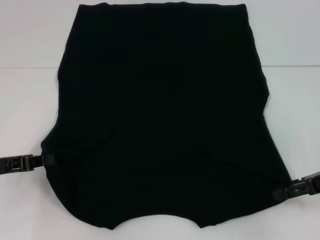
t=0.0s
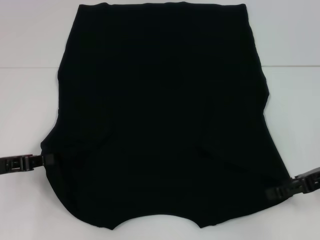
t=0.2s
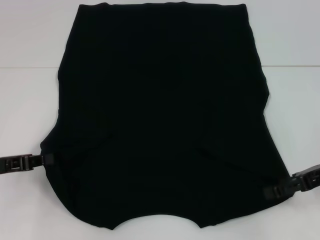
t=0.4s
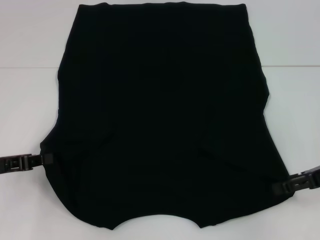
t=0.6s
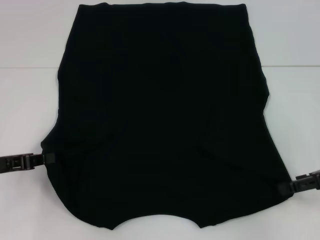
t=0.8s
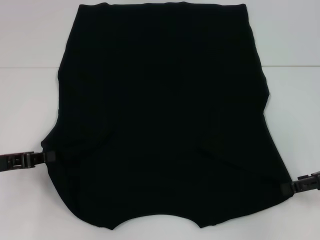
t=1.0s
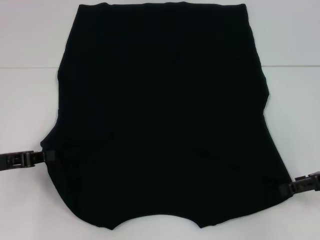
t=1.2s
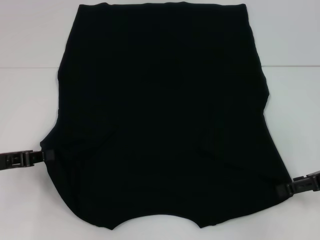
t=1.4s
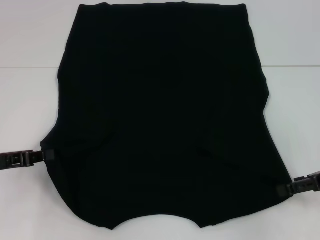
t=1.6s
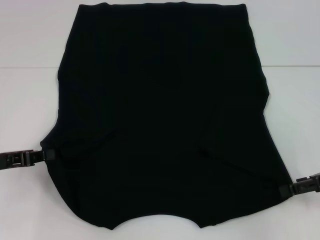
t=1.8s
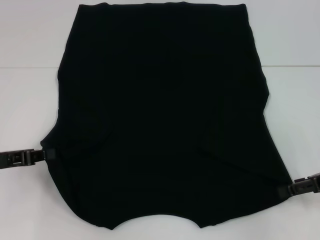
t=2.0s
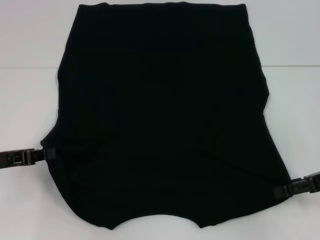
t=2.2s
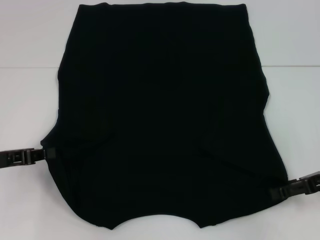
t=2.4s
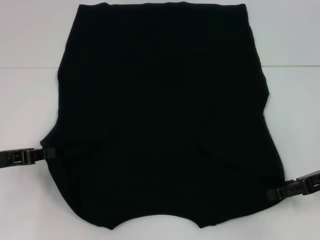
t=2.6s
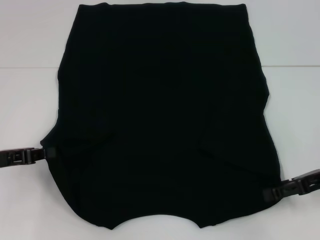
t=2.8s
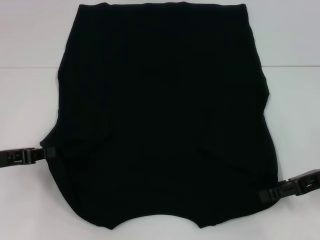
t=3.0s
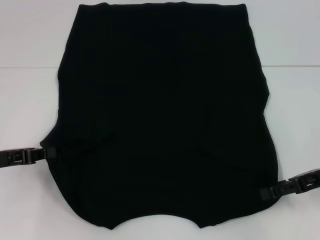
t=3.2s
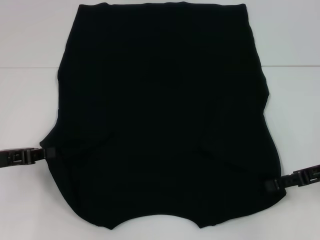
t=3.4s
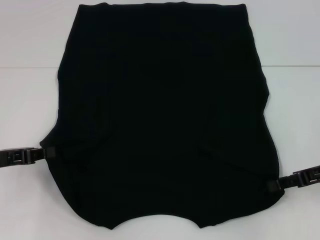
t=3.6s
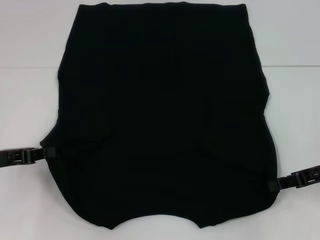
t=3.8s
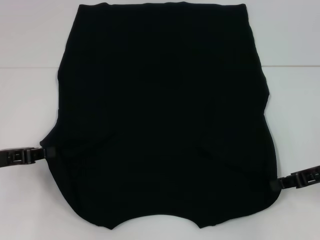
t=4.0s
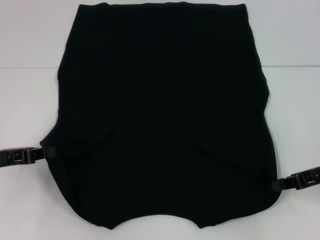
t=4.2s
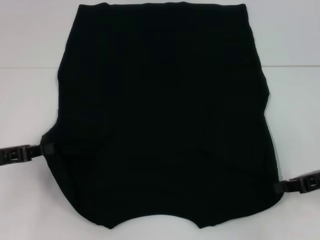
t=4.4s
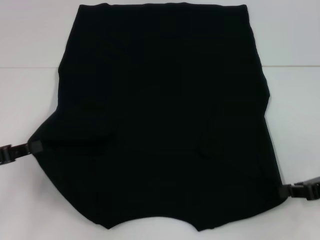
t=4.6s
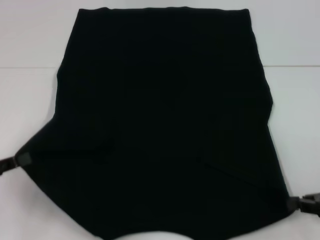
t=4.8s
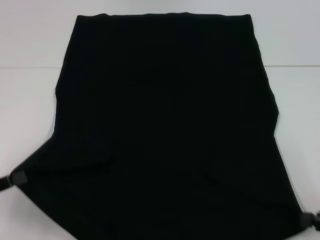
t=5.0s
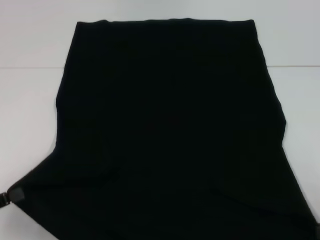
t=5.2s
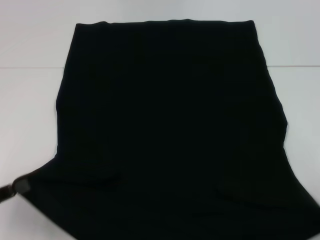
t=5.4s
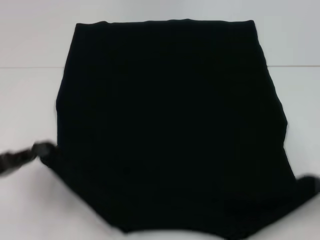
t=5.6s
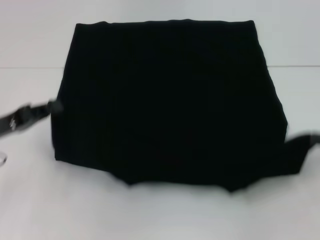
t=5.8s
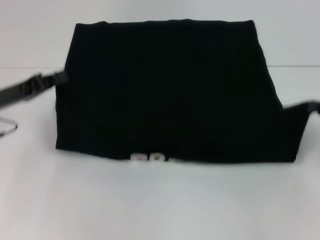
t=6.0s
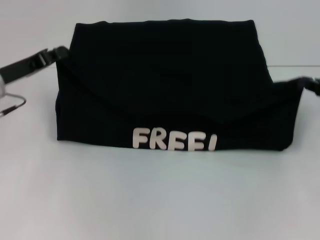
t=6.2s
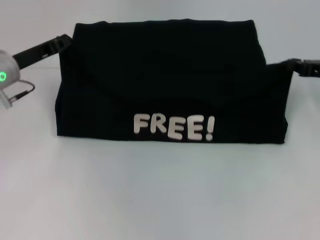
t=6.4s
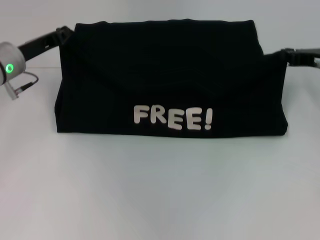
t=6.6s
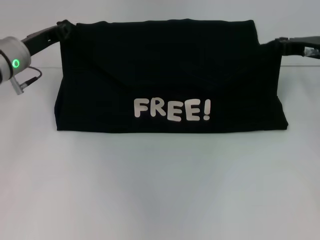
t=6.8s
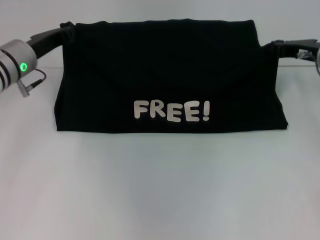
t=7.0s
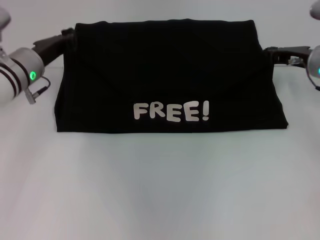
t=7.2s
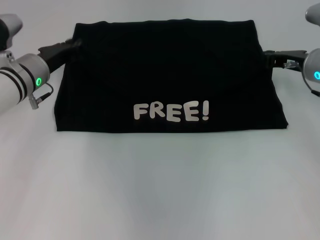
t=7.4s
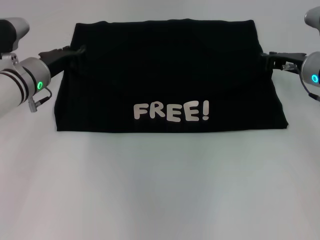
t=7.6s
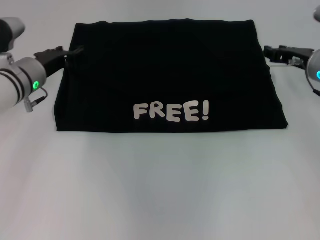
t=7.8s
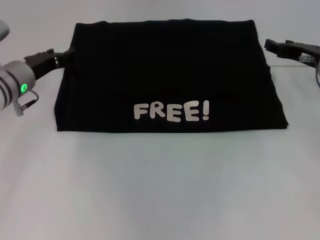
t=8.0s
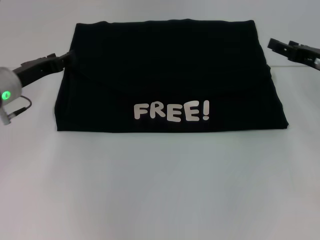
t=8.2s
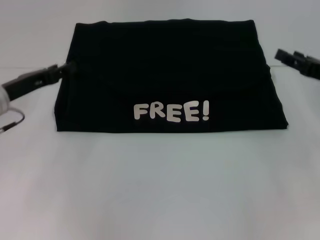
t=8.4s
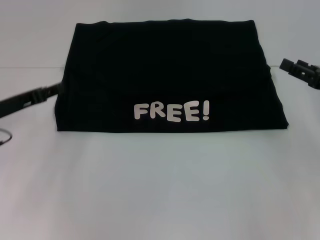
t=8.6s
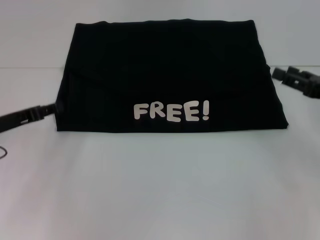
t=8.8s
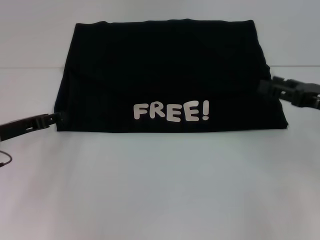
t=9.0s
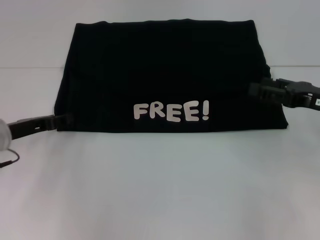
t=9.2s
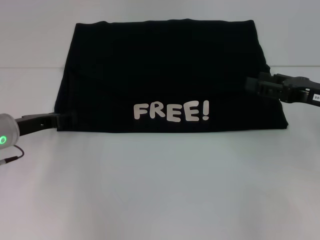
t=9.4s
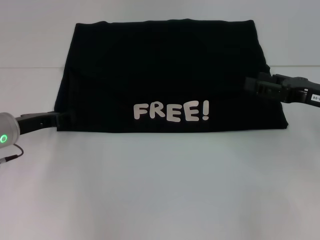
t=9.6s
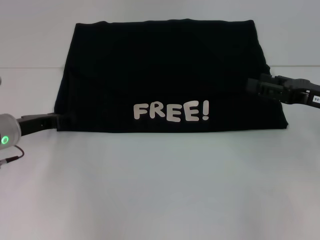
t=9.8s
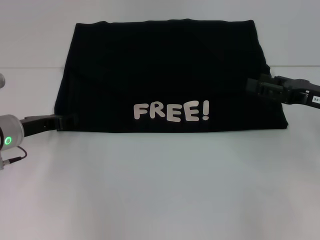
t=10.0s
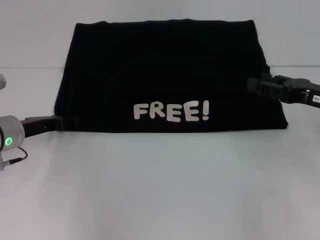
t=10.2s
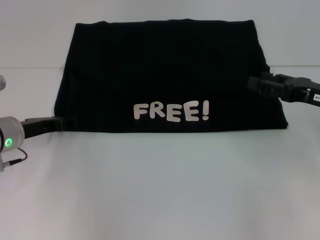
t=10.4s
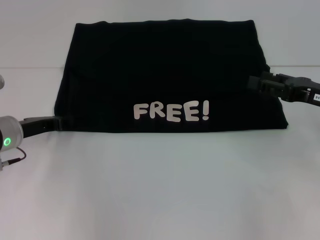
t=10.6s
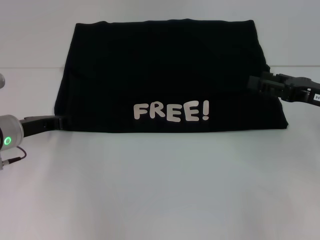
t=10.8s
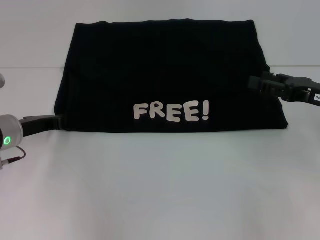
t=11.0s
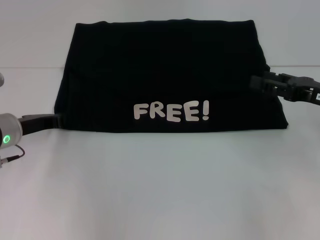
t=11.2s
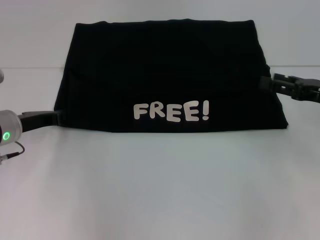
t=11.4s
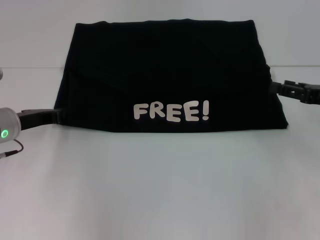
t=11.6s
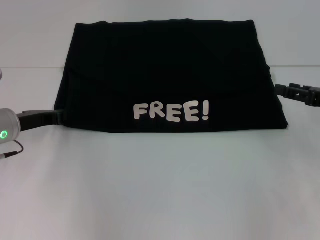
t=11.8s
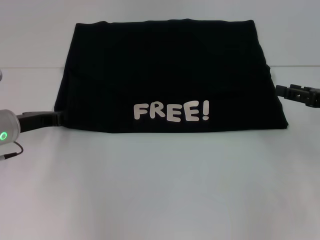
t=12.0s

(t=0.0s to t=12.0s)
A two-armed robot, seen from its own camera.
Step, t=0.0s - t=4.0s: Grab the bottom right corner with your right hand.
Step, t=4.2s - t=7.4s: Fold the clothes with your left hand.
Step, t=4.2s - t=7.4s: Fold the clothes with your right hand.
t=0.0s - t=3.0s: The grippers move only a little.
t=3.0s - t=4.4s: The right gripper closes up.
t=4.4s - t=6.0s: The right gripper is displaced to the right by some 5 cm, and moves about 10 cm backward and comes back. The left gripper heads forward, covering roughly 5 cm.
t=6.0s - t=7.6s: The right gripper heads to the left and forward, covering some 15 cm; the left gripper goes some 10 cm forward and to the right.
t=7.6s - t=9.0s: The right gripper is displaced backward and to the right by about 10 cm, and opens, while the left gripper is displaced backward and to the left by roughly 10 cm, and opens its fingers.
t=9.0s - t=10.4s: The grippers stay close to where they were, moving slightly.
t=10.4s - t=12.0s: The left gripper closes its fingers.

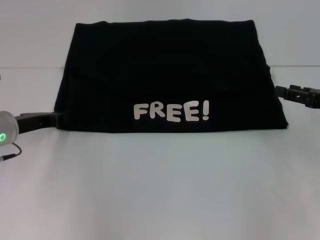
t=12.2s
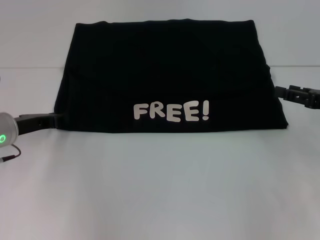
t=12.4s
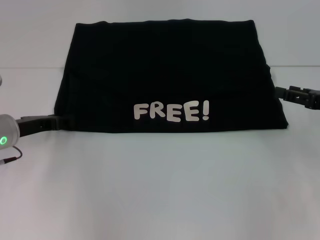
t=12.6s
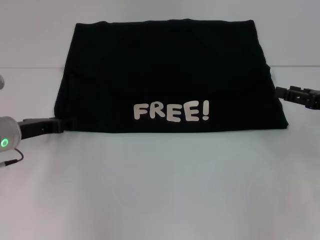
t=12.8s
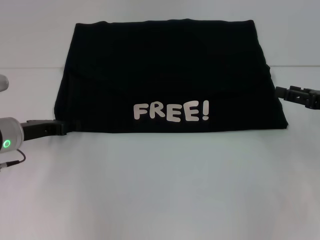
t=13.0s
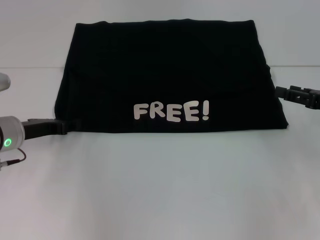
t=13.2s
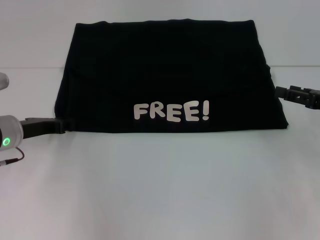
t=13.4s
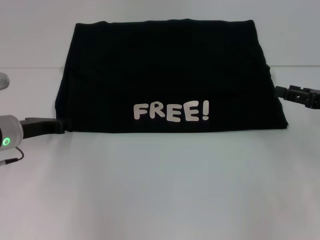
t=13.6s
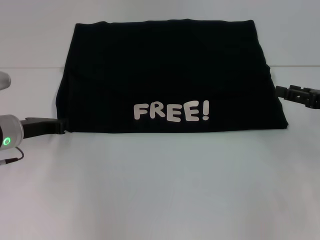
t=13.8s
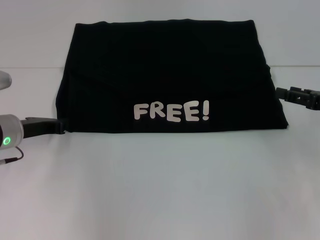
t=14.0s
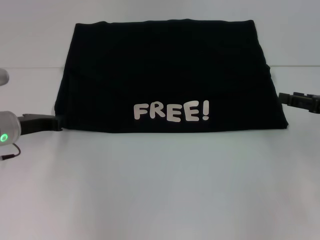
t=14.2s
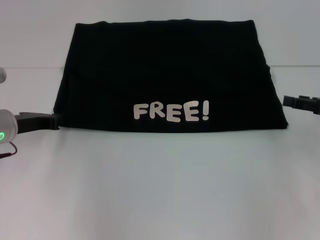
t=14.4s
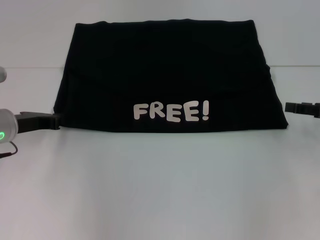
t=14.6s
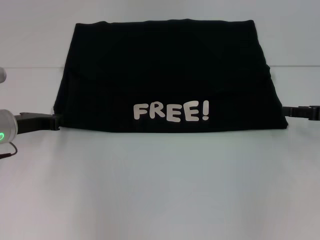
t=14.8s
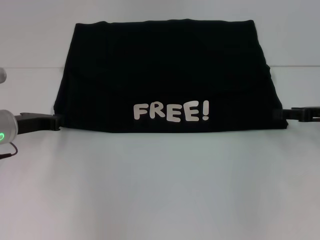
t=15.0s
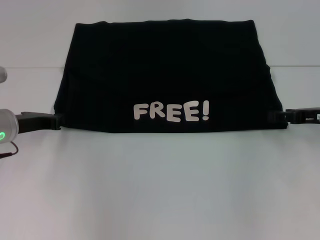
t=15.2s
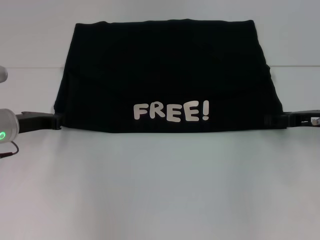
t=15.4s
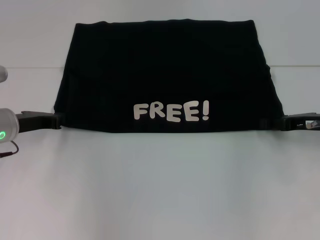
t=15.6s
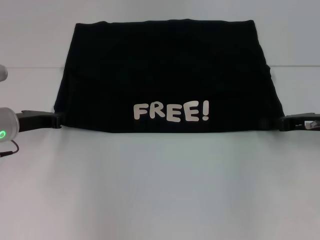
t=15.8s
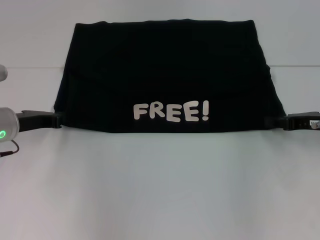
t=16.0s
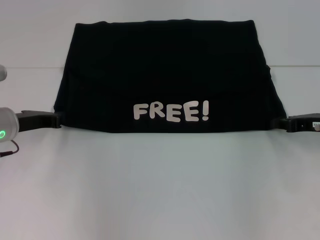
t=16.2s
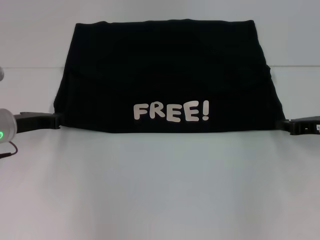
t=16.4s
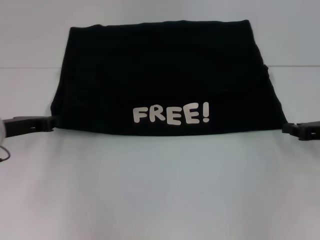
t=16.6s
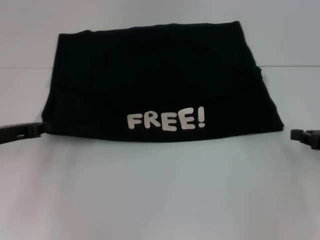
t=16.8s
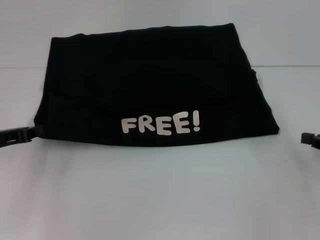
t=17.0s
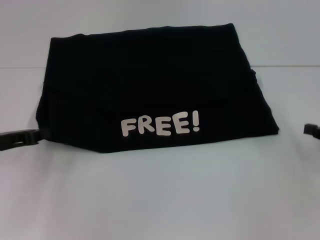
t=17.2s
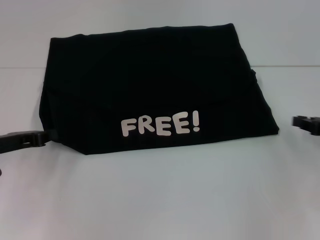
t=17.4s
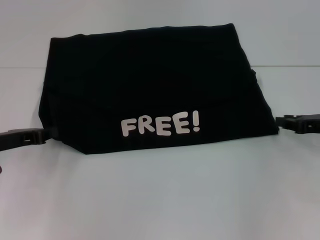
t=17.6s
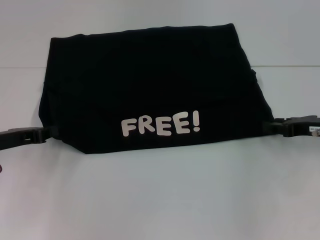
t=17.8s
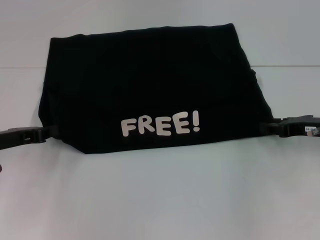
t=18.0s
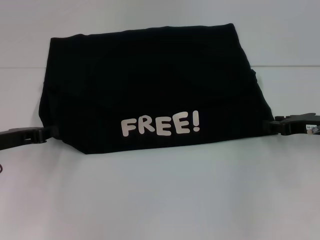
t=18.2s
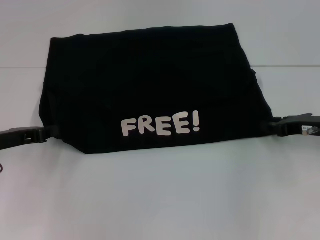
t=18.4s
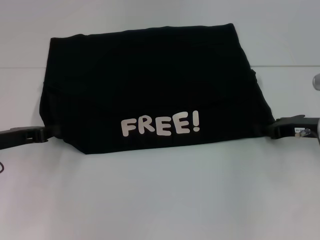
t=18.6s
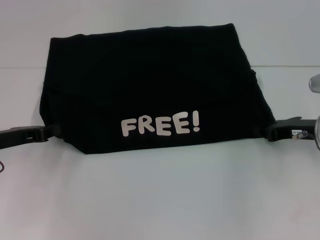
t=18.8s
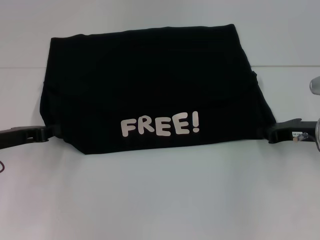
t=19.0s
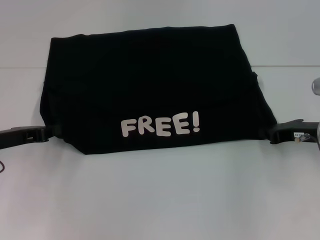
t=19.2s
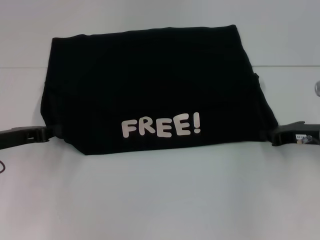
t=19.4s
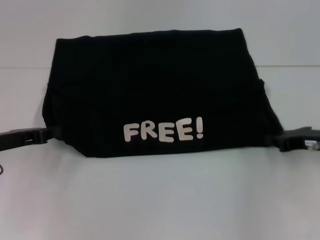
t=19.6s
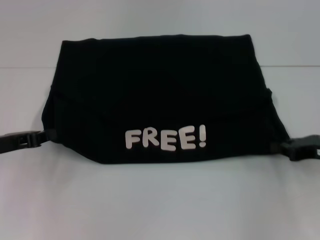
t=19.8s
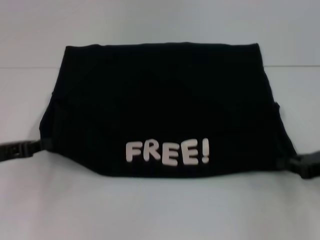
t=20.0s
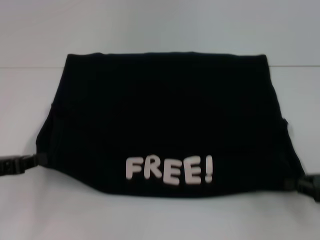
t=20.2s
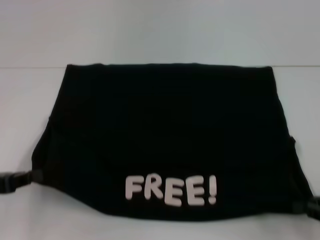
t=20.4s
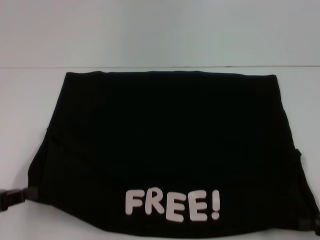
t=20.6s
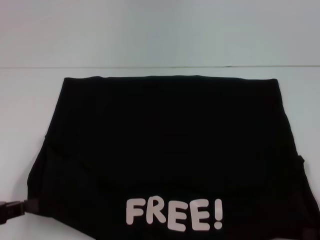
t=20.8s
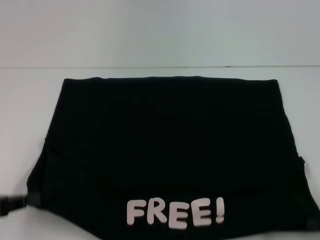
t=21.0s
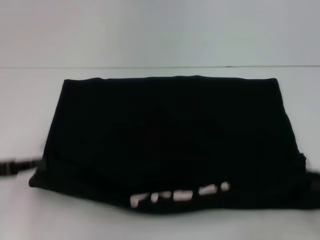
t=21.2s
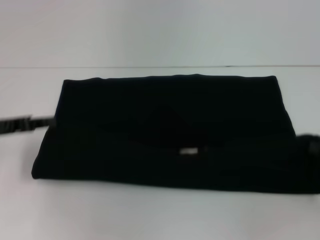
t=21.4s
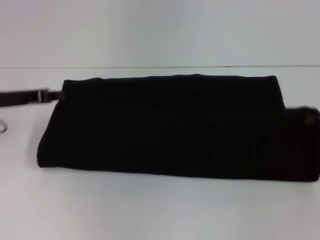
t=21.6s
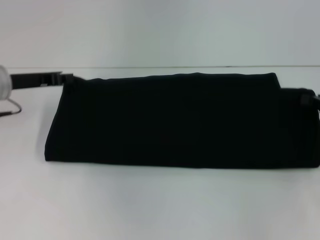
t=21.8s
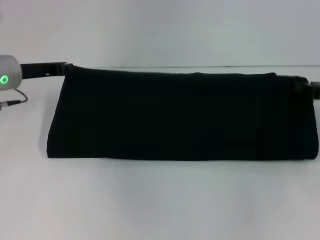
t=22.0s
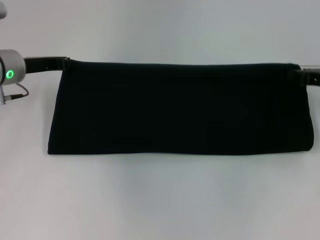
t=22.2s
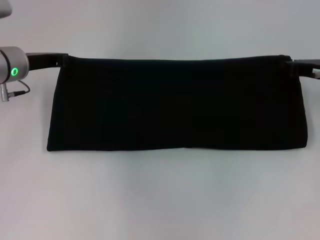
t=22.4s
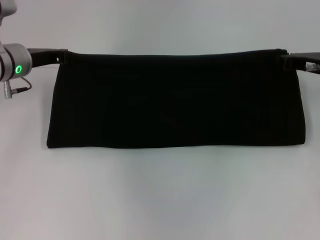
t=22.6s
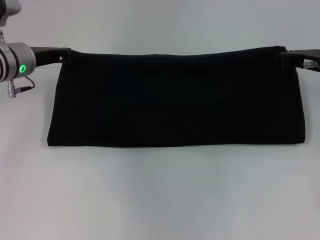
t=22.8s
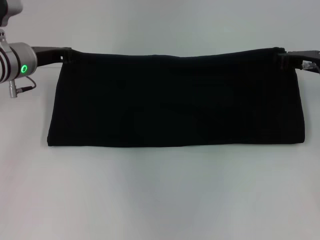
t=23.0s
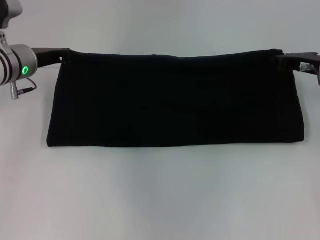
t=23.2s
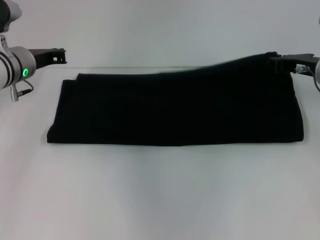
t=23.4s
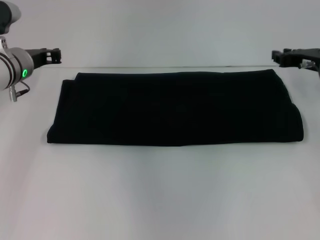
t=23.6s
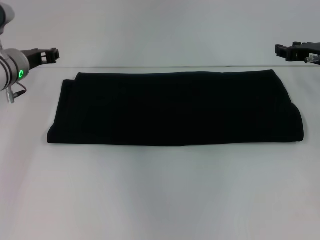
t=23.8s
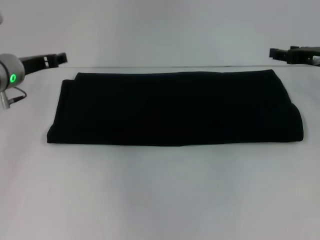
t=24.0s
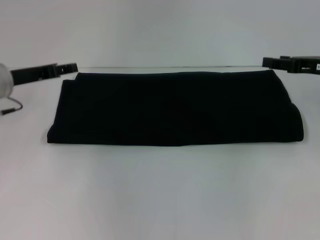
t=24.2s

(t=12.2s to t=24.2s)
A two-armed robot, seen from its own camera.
Step, t=12.2s - t=20.6s: Pull the clothes with your left hand.
Step, t=12.2s - t=20.6s: Pull the clothes with your right hand.
Step, t=20.8s - t=23.6s: Fold the clothes with your right hand.
t=12.2s - t=13.8s: The left gripper opens, then closes once more.
t=15.2s - t=16.6s: The right gripper closes.
t=16.6s - t=18.2s: The grippers make only small movements.
t=18.2s - t=19.8s: The right gripper closes.
t=19.8s - t=21.2s: The left gripper travels backward by approximately 5 cm, while the right gripper travels backward and to the right by about 10 cm.
t=21.2s - t=22.6s: The right gripper goes about 25 cm forward and to the left. Meanwhile the left gripper travels forward and to the right by about 20 cm.
t=22.6s - t=24.2s: The right gripper opens up; the left gripper ends up about 5 cm from where it was, and opens.
